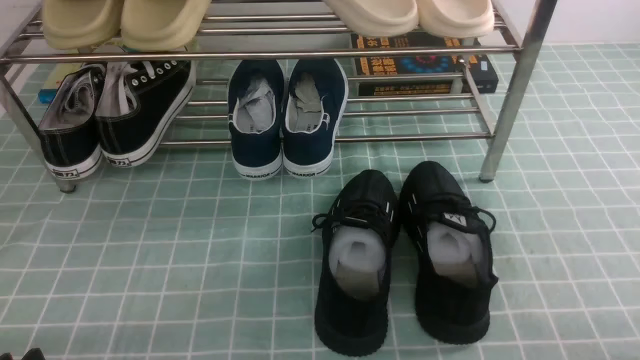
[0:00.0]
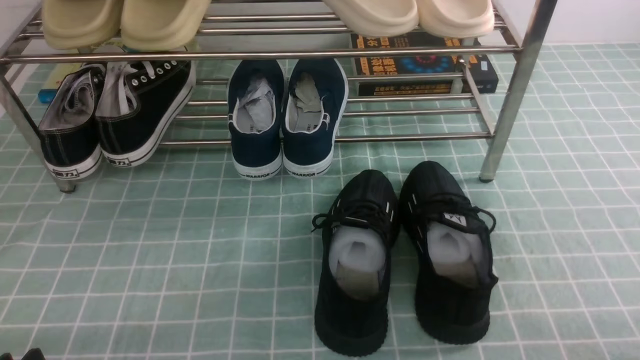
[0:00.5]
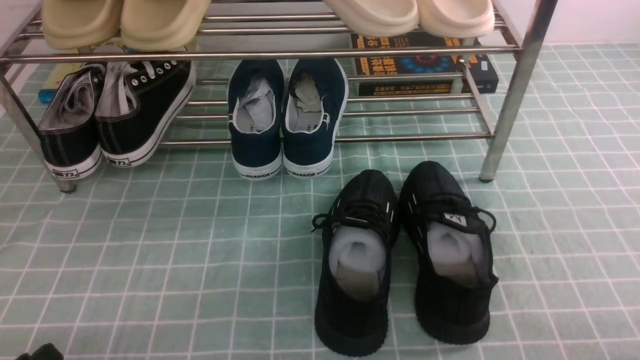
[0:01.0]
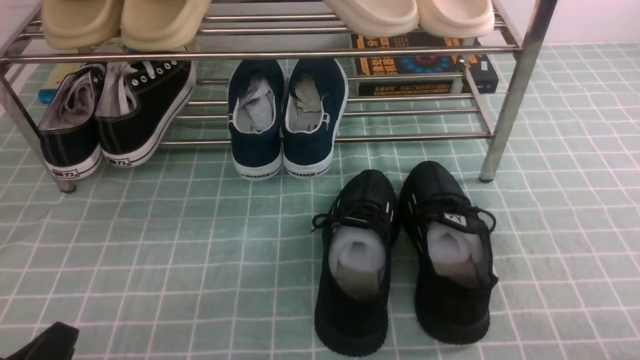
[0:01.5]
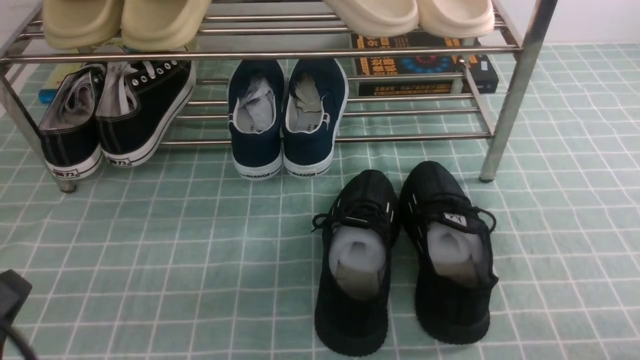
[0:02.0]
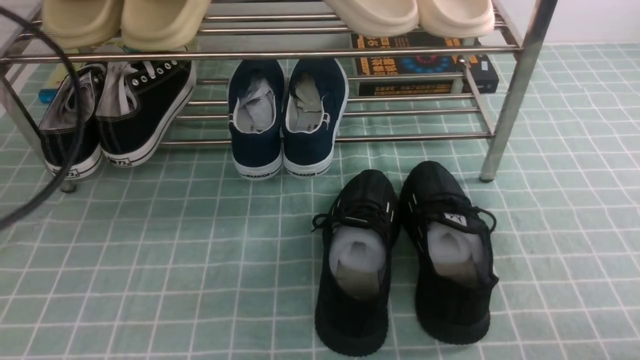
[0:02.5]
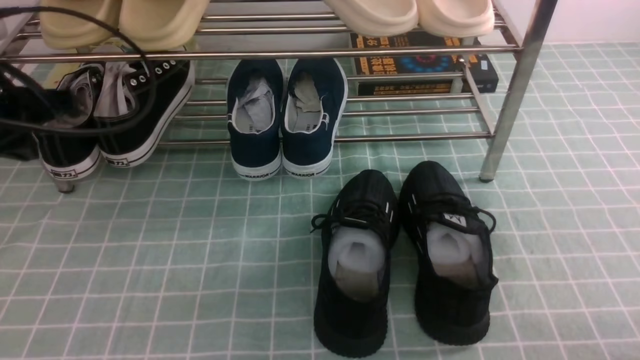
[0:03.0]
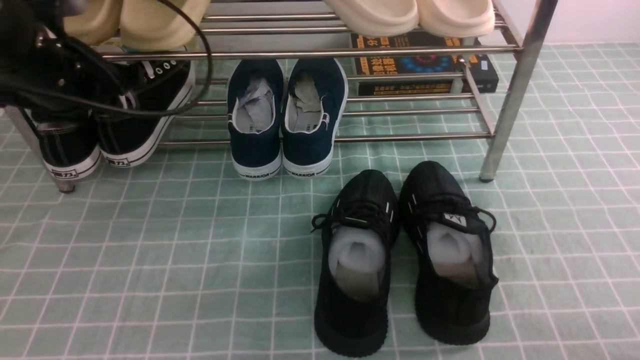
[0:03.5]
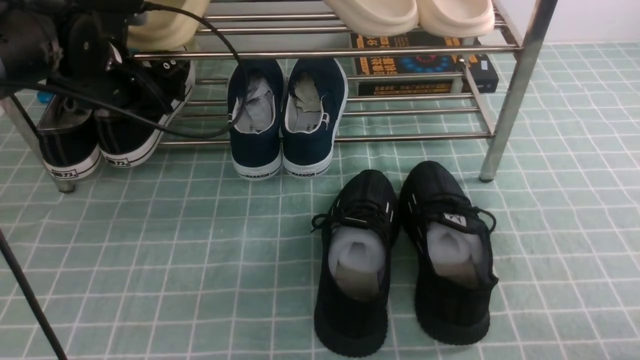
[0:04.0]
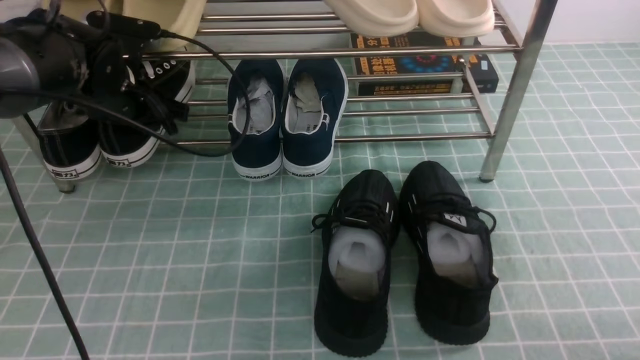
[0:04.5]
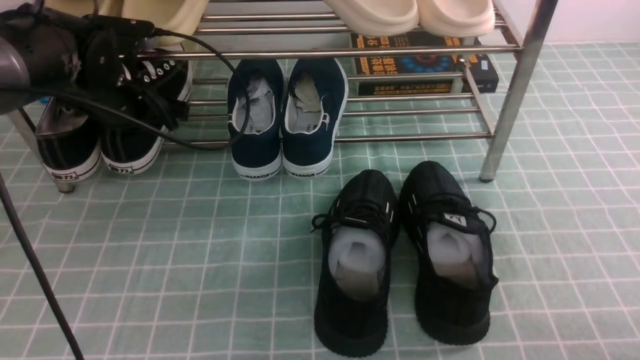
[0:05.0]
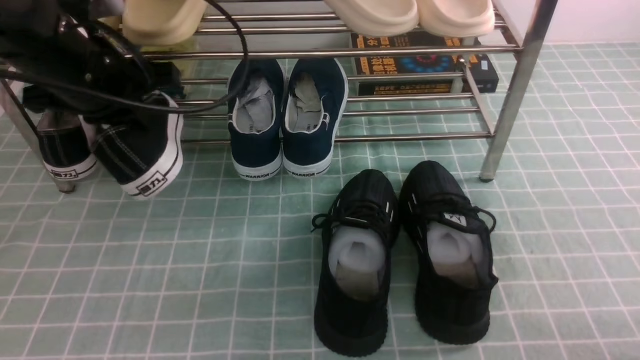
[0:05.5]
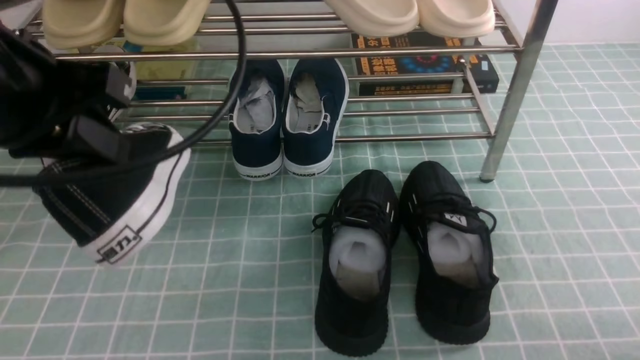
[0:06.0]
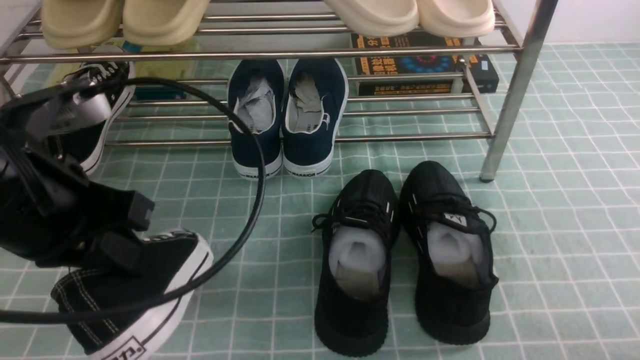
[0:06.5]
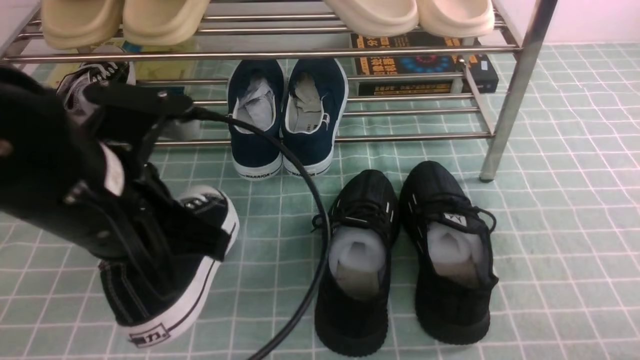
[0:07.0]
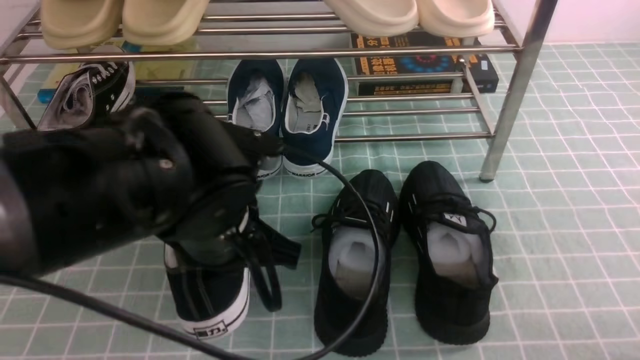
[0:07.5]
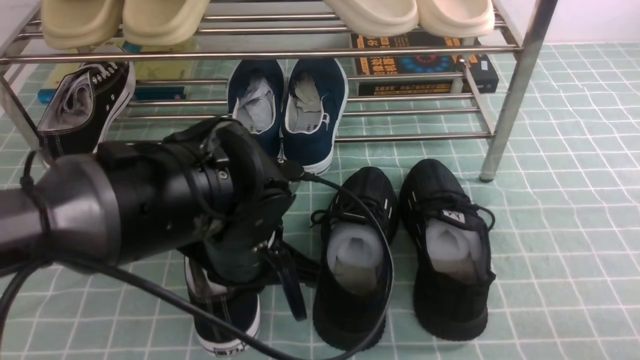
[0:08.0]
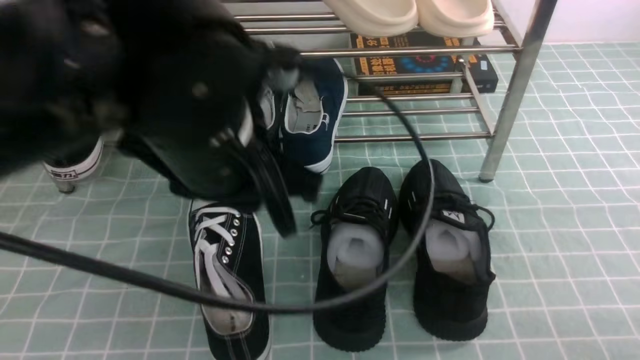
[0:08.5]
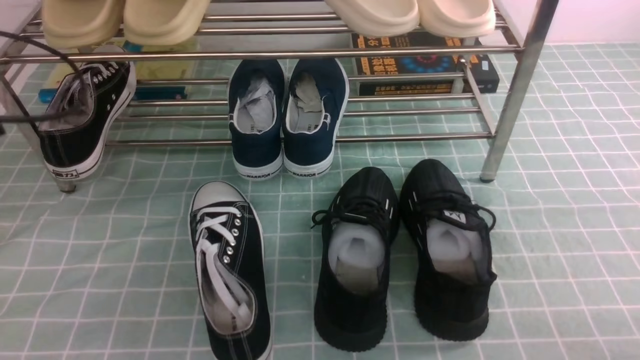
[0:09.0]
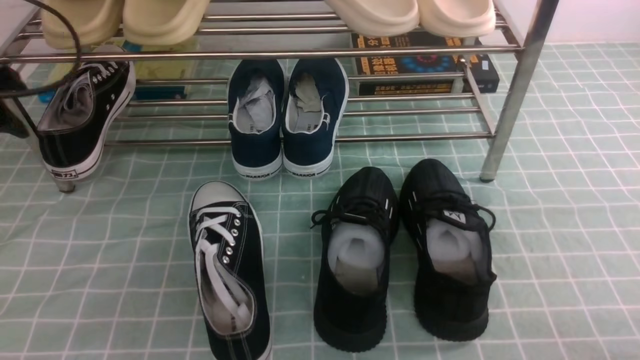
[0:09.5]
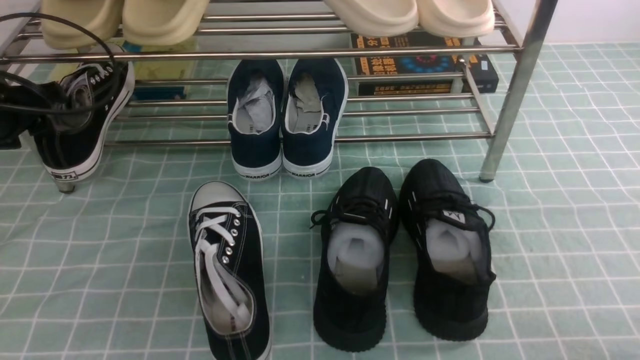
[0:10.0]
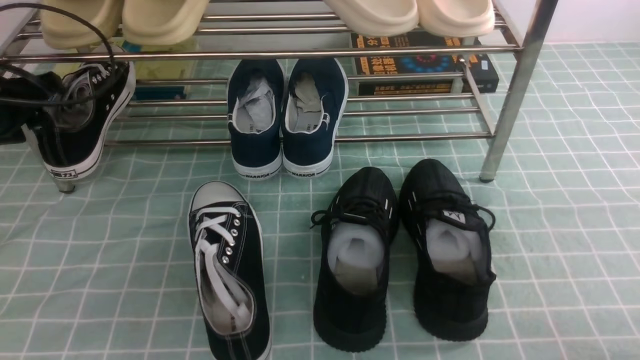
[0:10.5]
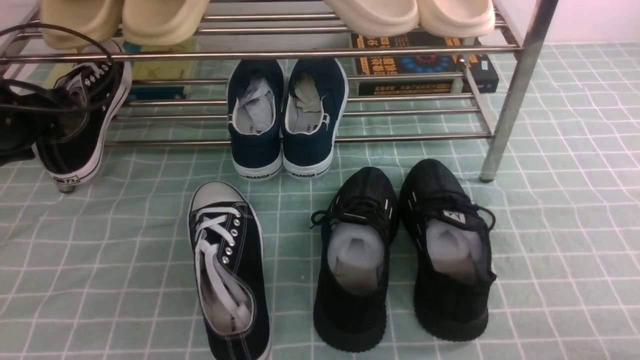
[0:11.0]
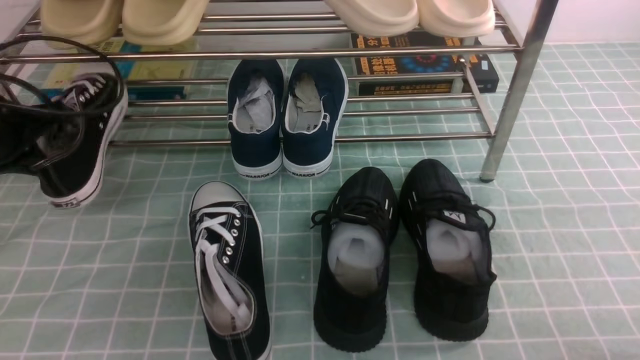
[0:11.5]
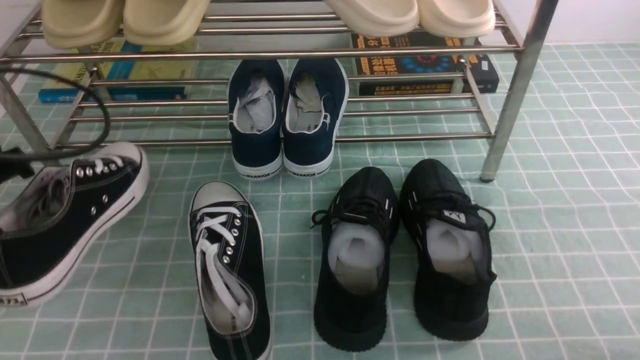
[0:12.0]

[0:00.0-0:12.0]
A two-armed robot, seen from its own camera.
Step, 0:00.0 to 0:04.5: use the left arm to clamp a shoe on the left side of the shoe rack.
Step, 0:05.0 to 0:08.0: Use your left arm to remove the clamped shoe from the shoe rack and put it down.
Step, 0:08.5 to 0:11.0: use the left arm to clamp a shoe on the left side of the shoe rack.
0:00.0 to 0:02.0: The left gripper moves upward, approximately 10 cm, and closes its fingers.
0:02.0 to 0:04.0: The left gripper heads forward, covering roughly 35 cm, and opens up.
0:04.0 to 0:06.0: The left gripper is displaced backward and upward by roughly 20 cm, and closes up.
0:06.0 to 0:08.0: The left gripper shifts roughly 20 cm downward and to the right.
0:08.0 to 0:10.0: The left gripper is displaced to the left and forward by approximately 30 cm, and opens its fingers.
0:10.0 to 0:12.0: The left gripper is displaced backward by about 10 cm, and closes its fingers.

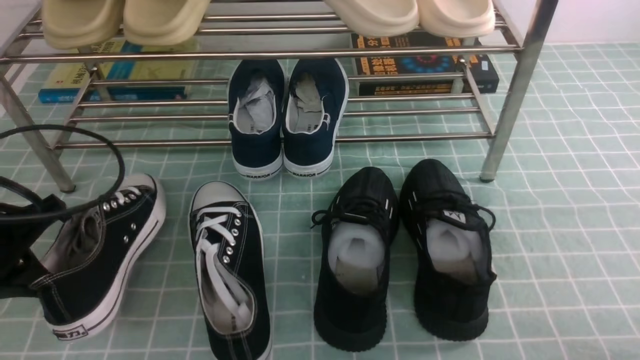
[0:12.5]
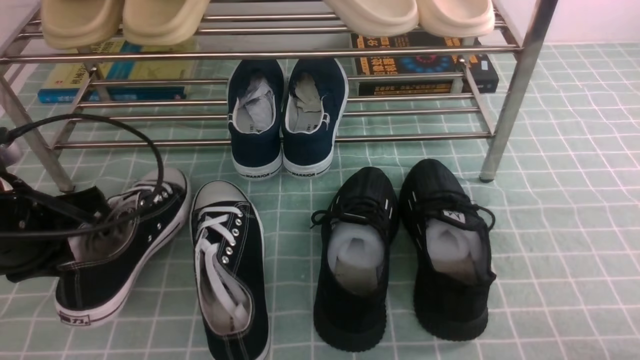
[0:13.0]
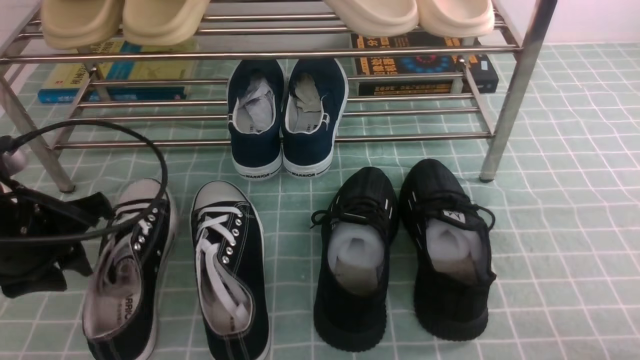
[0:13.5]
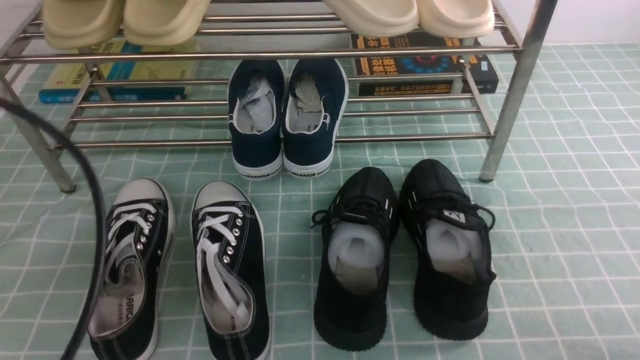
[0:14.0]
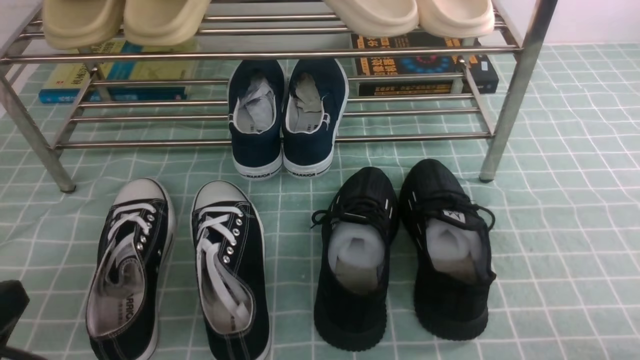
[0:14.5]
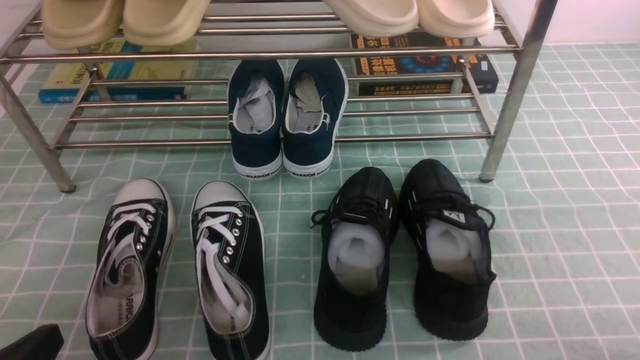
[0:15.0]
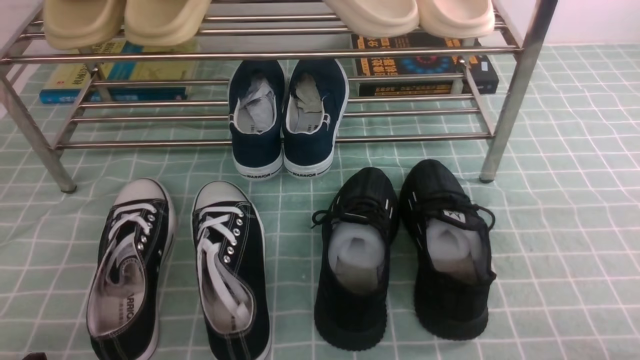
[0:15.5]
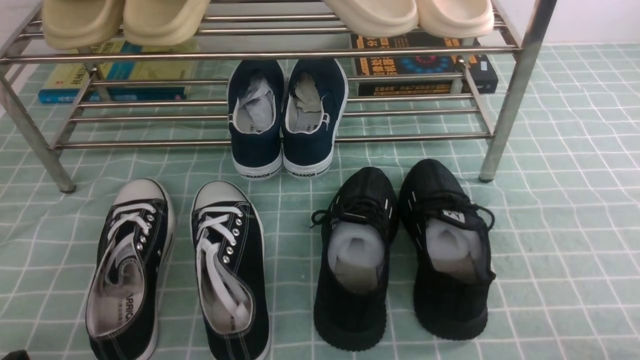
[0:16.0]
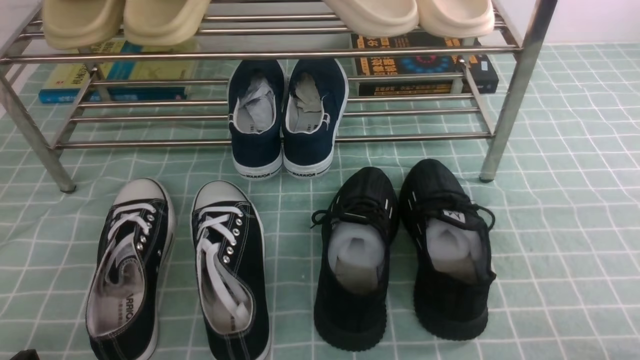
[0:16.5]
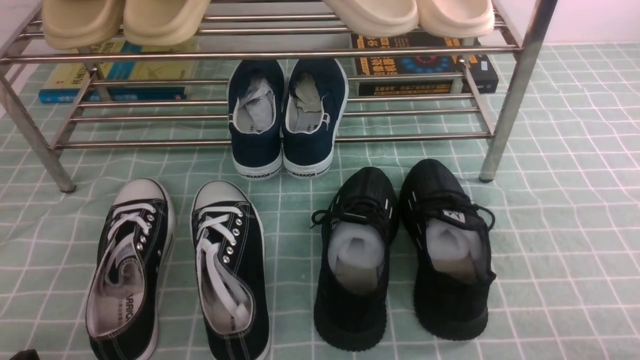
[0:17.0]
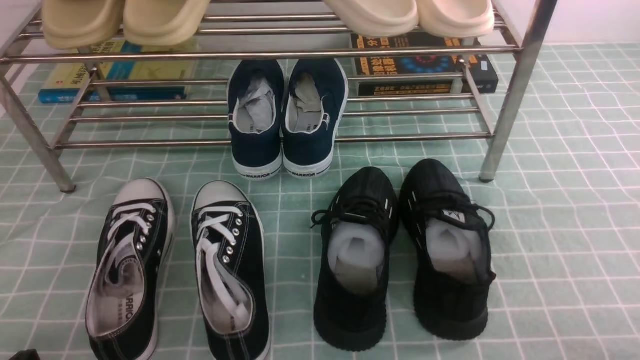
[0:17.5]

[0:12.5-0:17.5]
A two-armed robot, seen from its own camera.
0:12.5 to 0:15.0: The left gripper is displaced backward by some 15 cm, and opens and closes again.

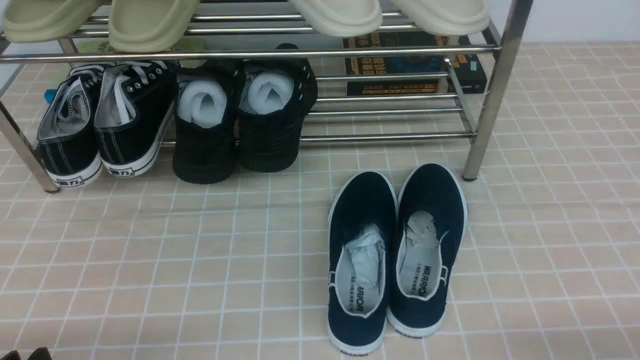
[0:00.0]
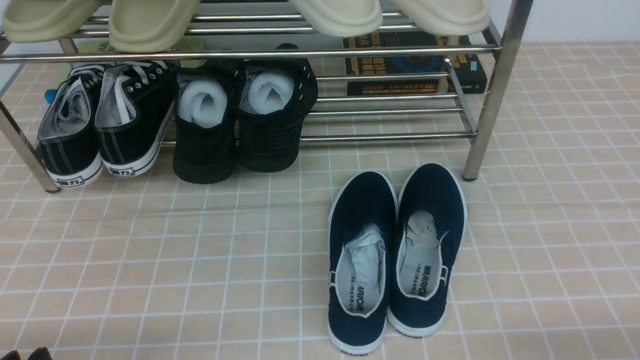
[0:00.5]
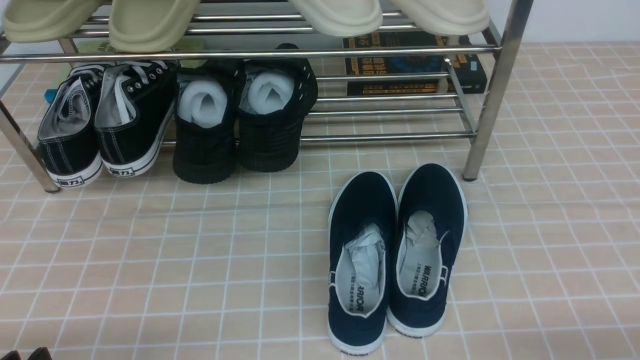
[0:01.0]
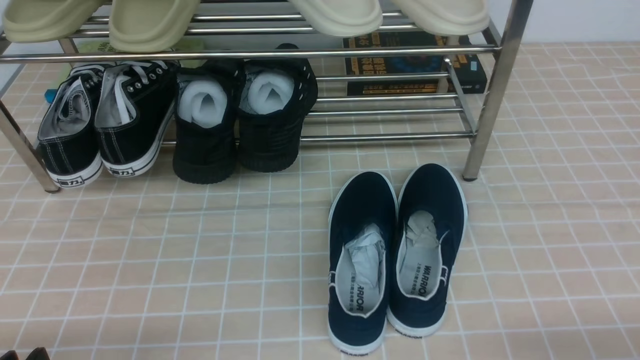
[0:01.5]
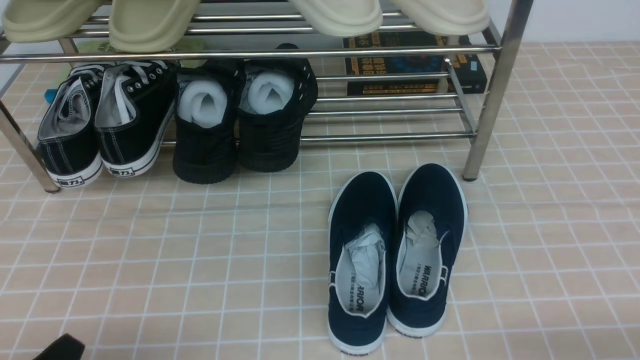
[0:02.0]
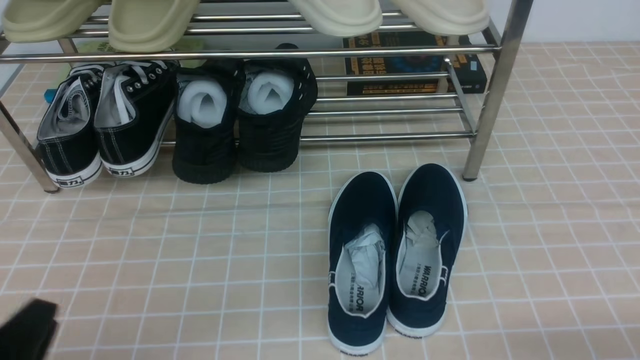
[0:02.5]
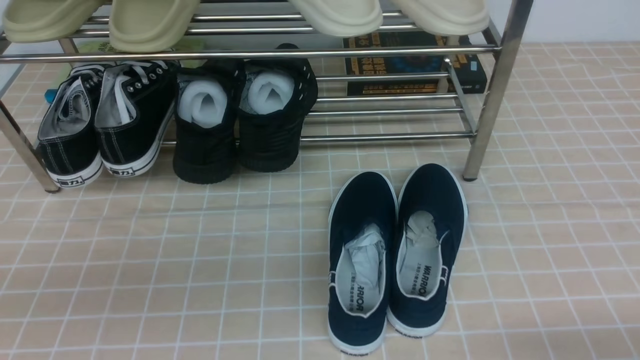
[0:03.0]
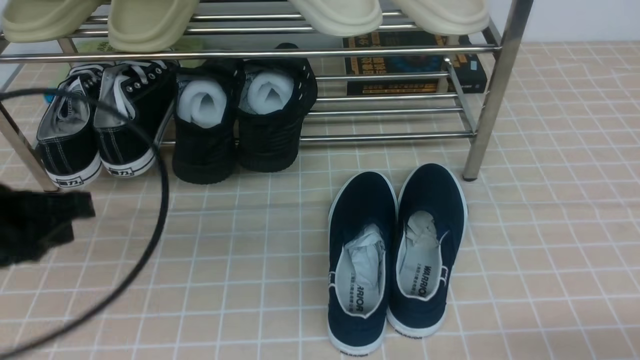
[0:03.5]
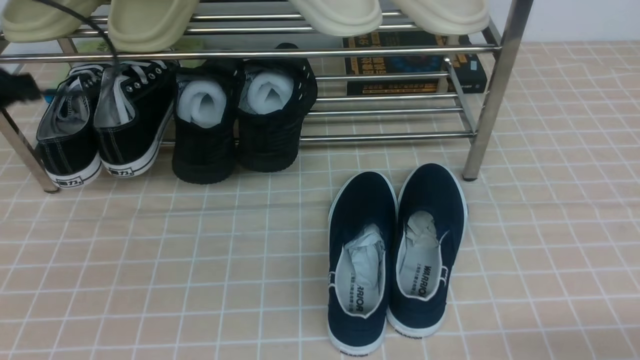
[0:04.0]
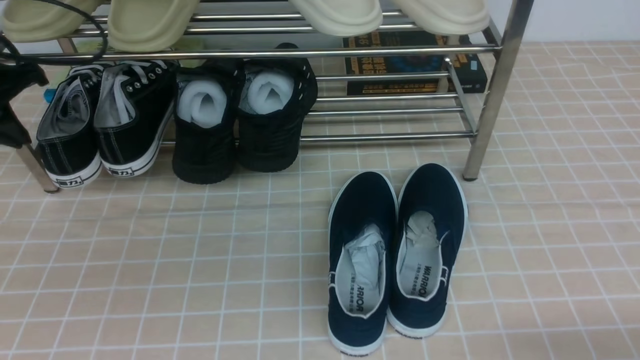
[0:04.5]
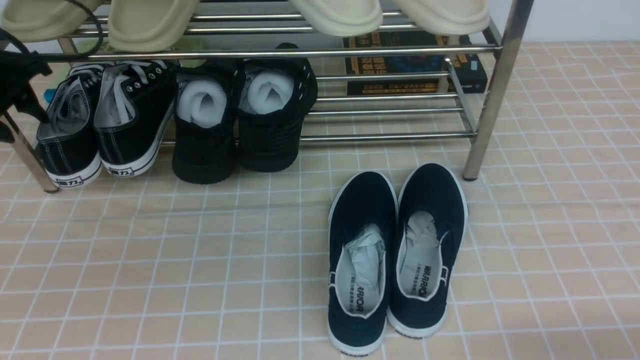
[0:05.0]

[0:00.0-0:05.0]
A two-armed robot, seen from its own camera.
0:02.5 to 0:05.0: The left gripper is displaced forward by some 35 cm, and opens up.
